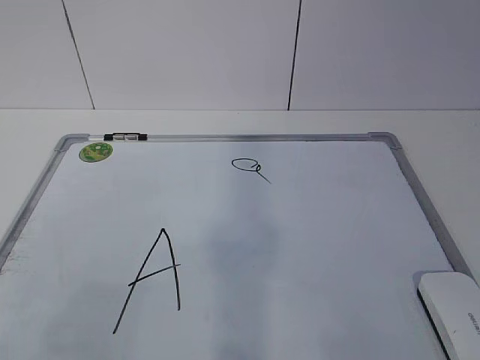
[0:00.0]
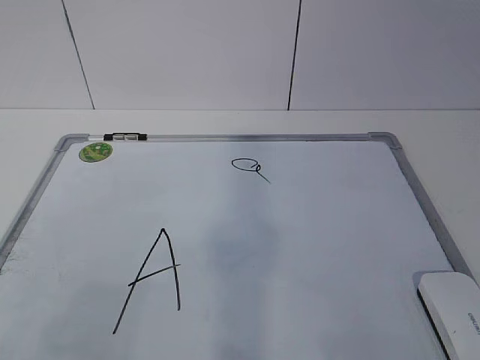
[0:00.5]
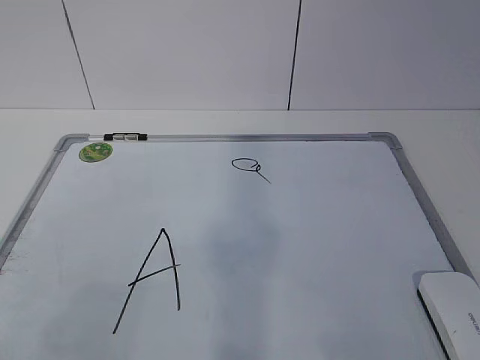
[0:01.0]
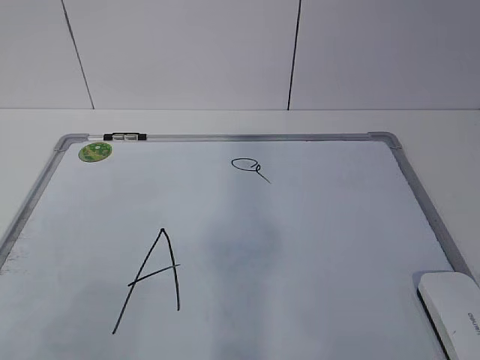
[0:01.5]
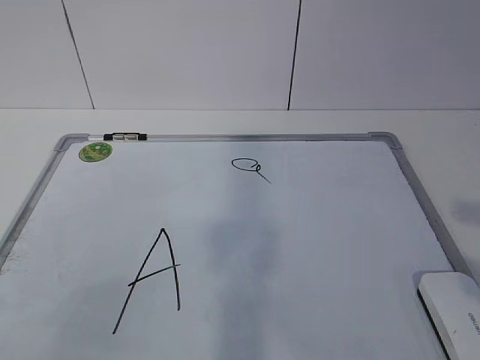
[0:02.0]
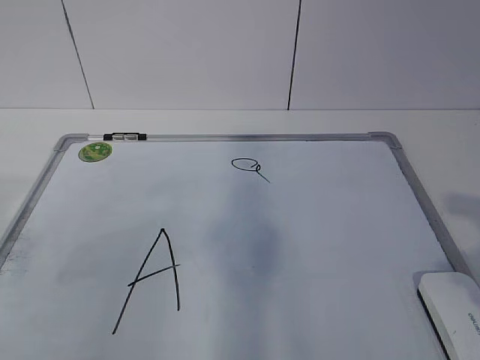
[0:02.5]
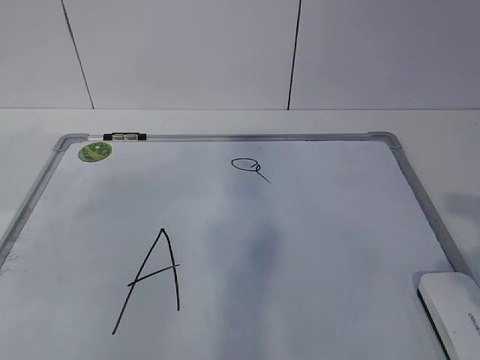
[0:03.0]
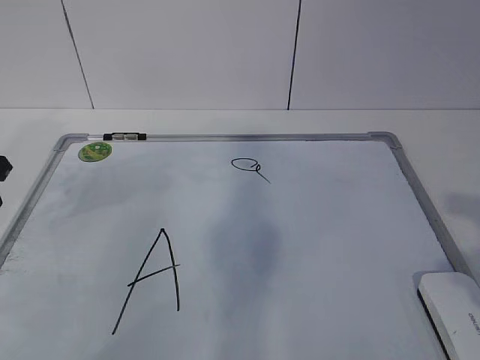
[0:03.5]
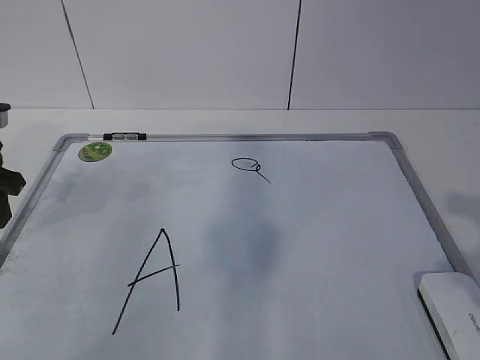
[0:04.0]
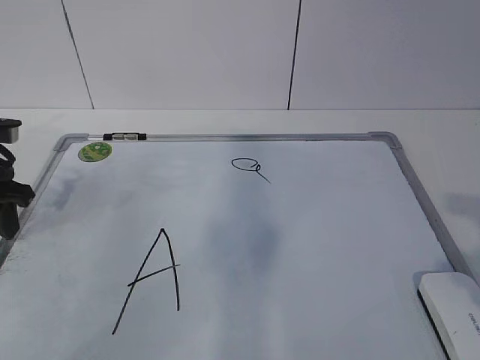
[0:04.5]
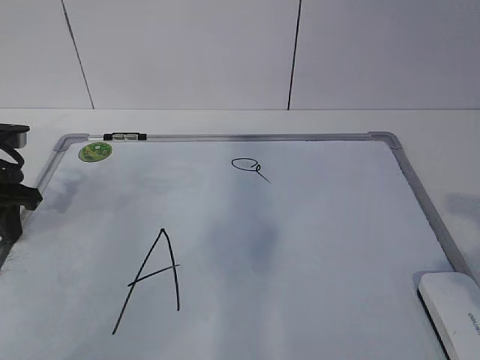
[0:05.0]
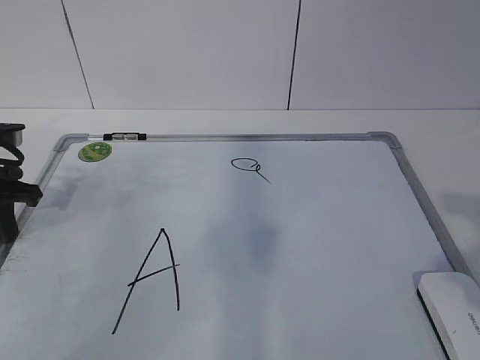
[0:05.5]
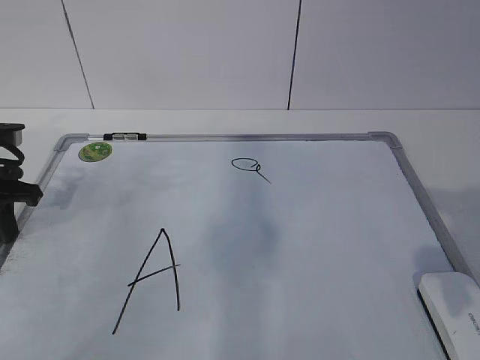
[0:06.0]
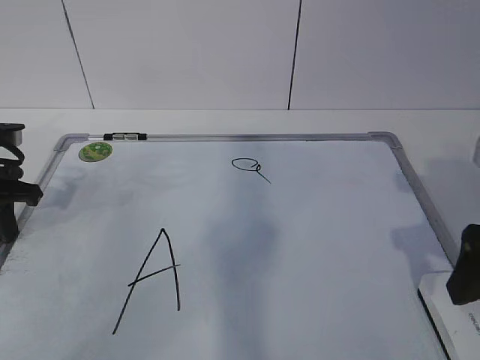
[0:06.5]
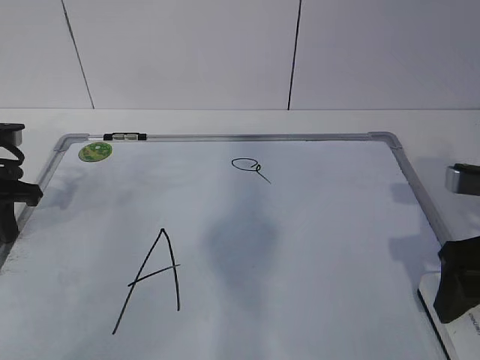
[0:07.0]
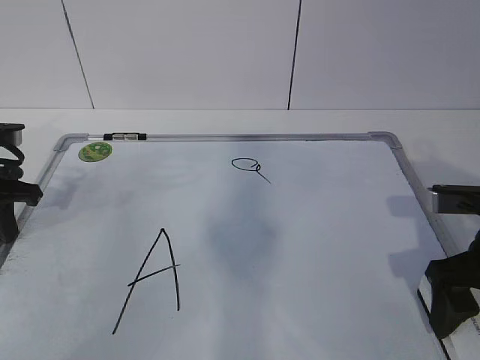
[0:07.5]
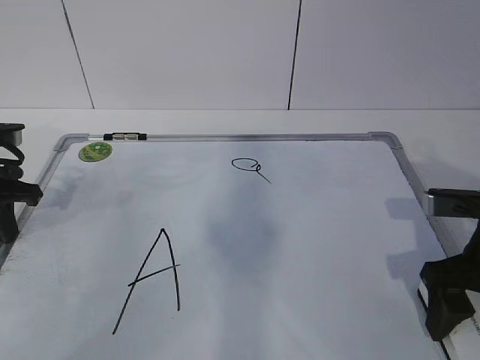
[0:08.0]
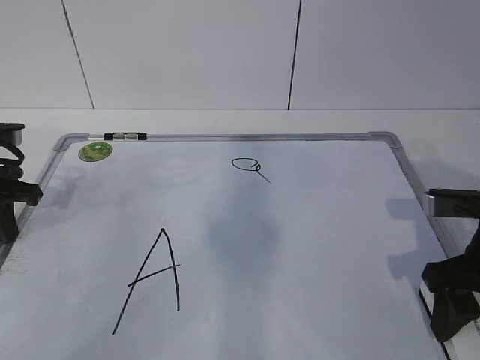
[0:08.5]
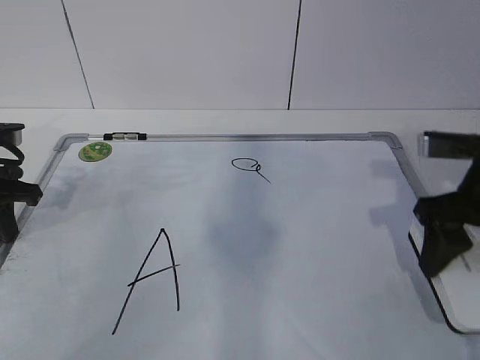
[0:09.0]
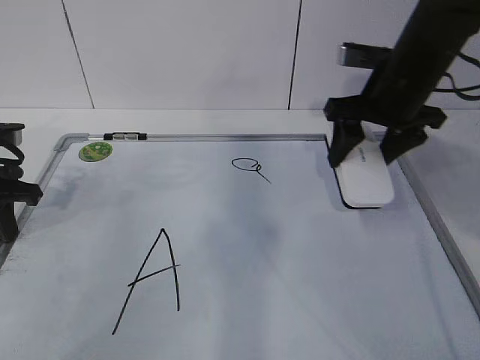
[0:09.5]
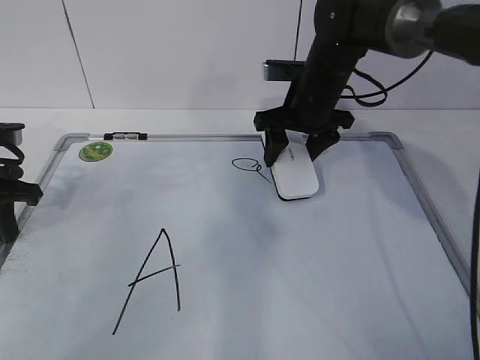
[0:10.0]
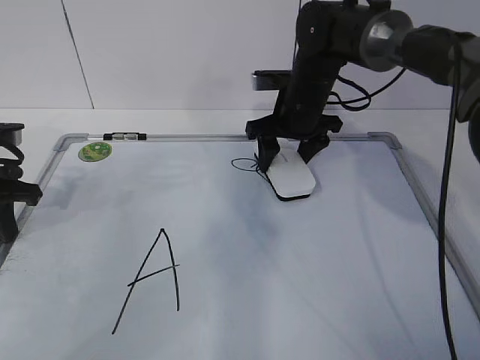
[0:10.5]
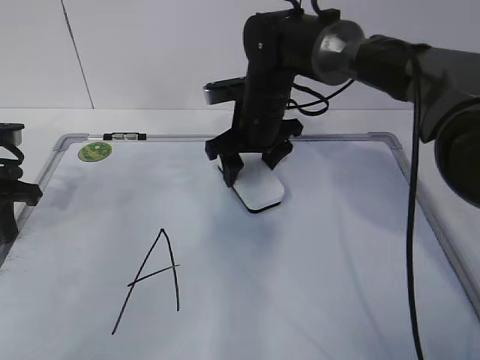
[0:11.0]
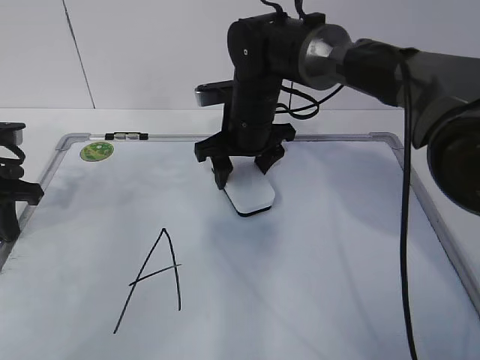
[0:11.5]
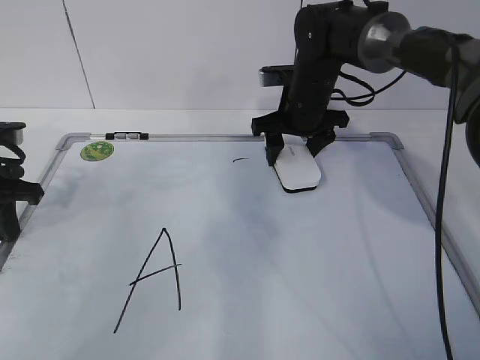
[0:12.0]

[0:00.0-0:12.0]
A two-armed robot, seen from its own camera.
Task of the whole recording: pick up the eraser on the blackboard and erase the letter "a".
Step, 0:04.5 to 0:07.0: Grab the eraser with your right hand.
0:02.0 to 0:04.0: The left gripper travels forward by approximately 30 cm.
0:04.0 to 0:06.0: The left gripper closes up.
0:06.0 to 0:08.0: The right gripper is displaced forward and downward by approximately 15 cm.
0:08.0 to 0:10.0: The right gripper shifts approximately 25 cm forward and to the left, and closes its fingers.
0:10.0 to 0:12.0: The right gripper goes to the left and returns, approximately 10 cm each way.

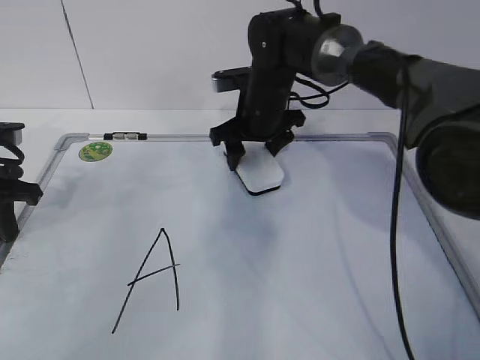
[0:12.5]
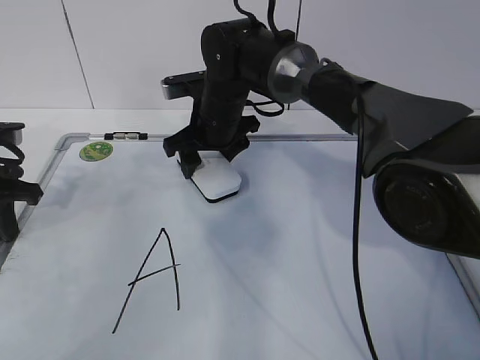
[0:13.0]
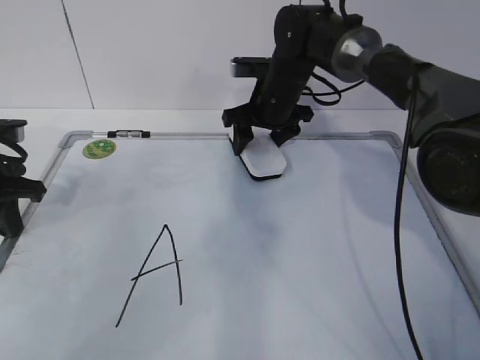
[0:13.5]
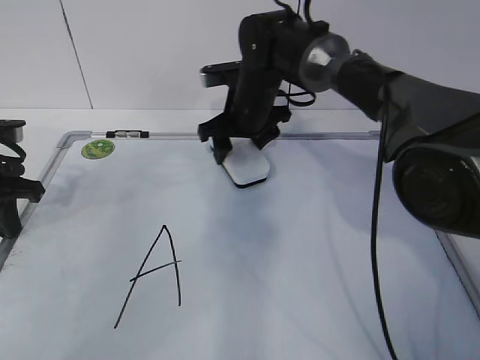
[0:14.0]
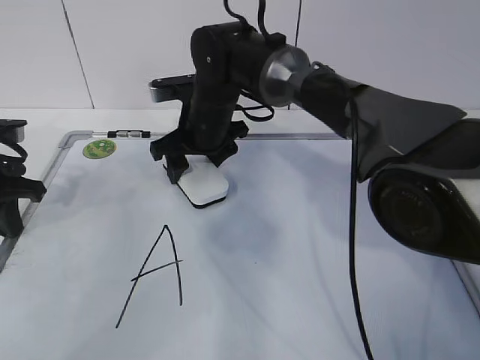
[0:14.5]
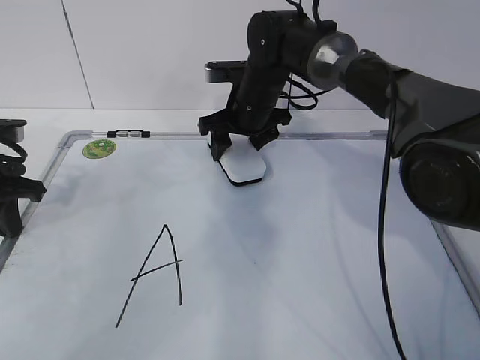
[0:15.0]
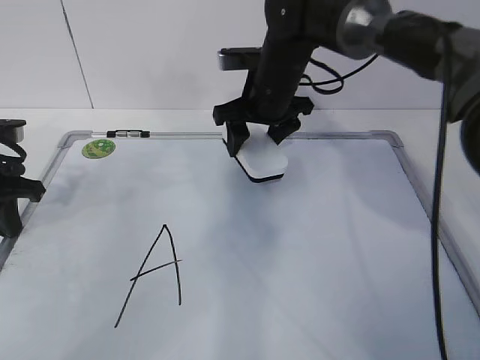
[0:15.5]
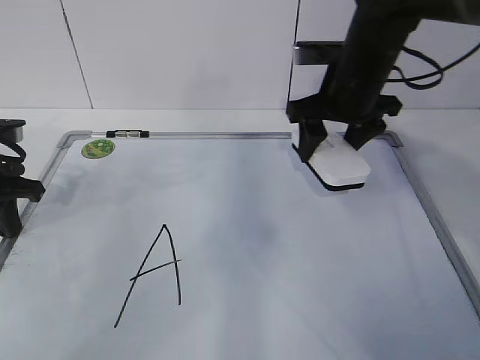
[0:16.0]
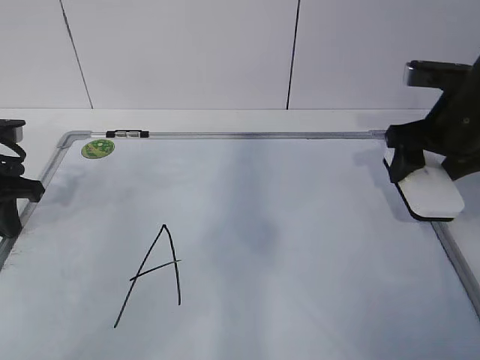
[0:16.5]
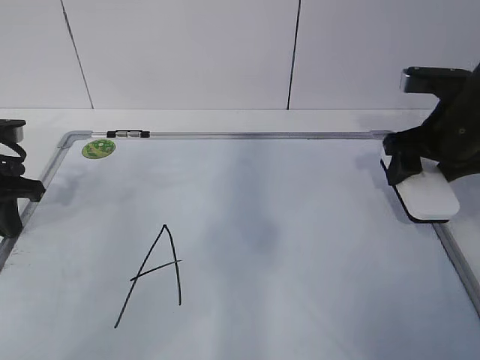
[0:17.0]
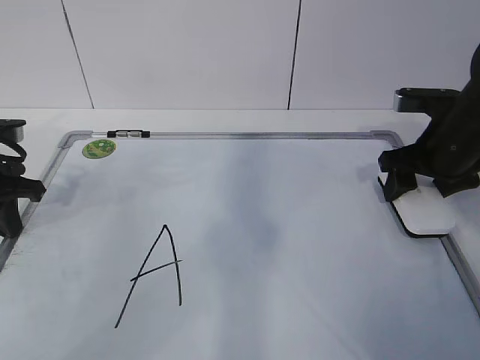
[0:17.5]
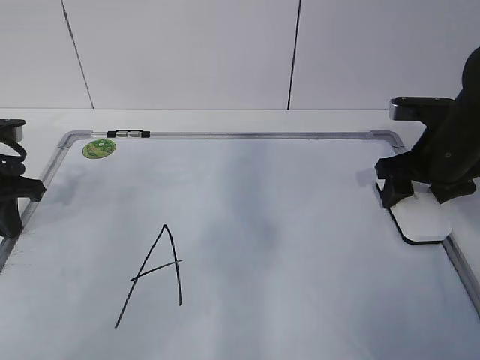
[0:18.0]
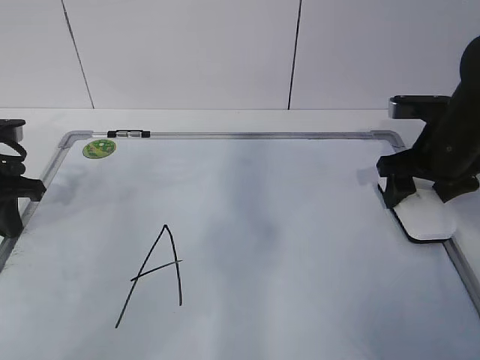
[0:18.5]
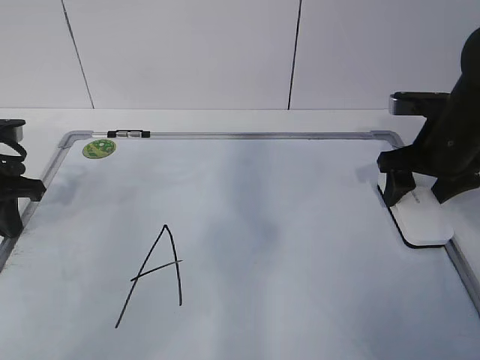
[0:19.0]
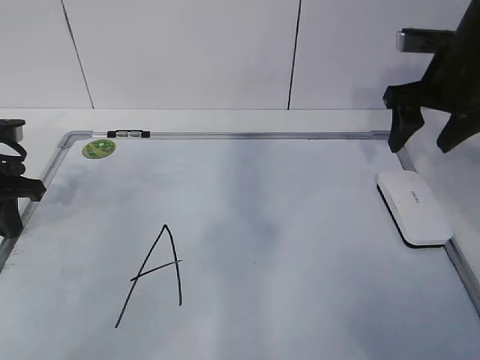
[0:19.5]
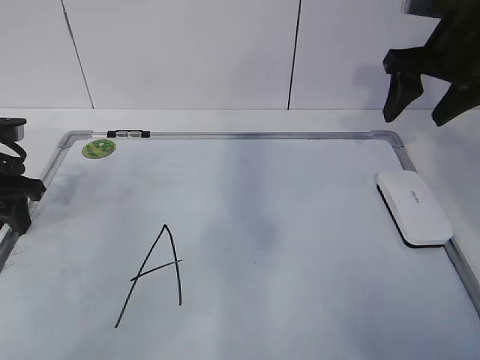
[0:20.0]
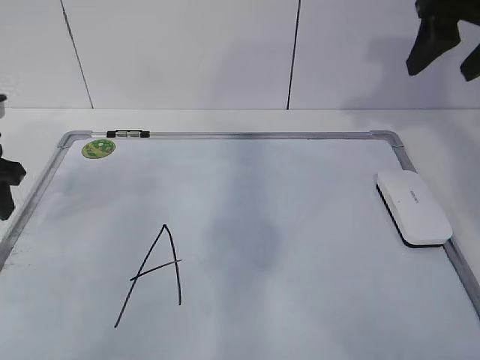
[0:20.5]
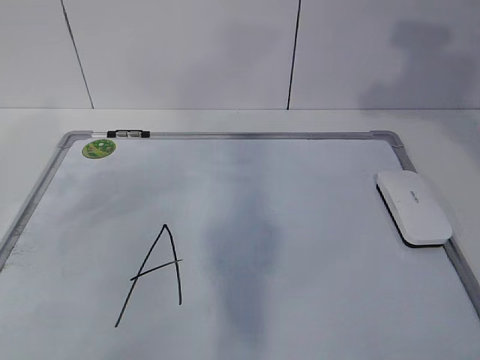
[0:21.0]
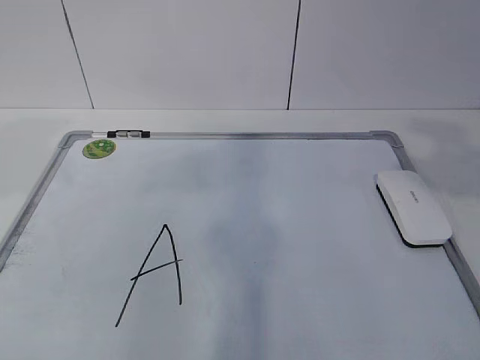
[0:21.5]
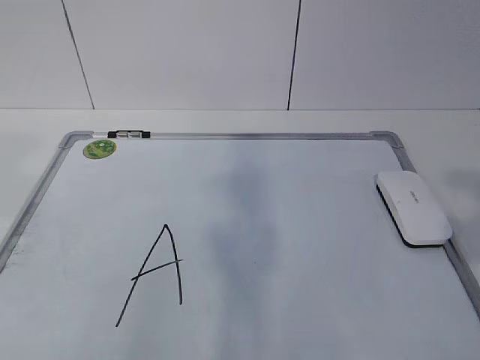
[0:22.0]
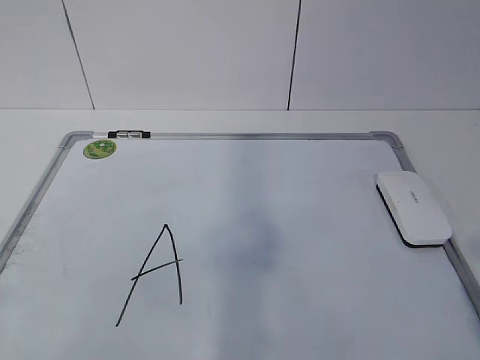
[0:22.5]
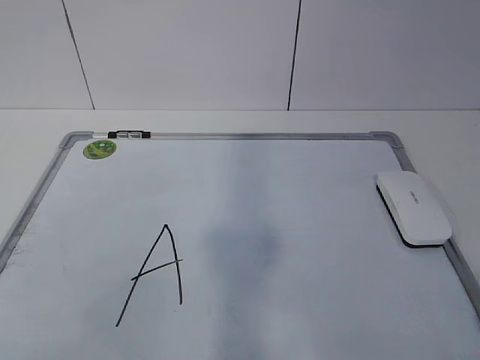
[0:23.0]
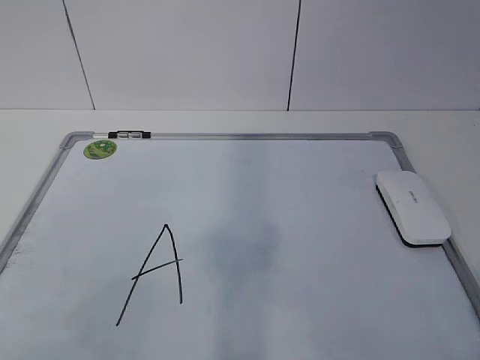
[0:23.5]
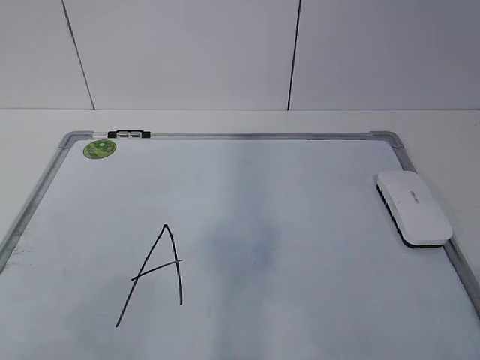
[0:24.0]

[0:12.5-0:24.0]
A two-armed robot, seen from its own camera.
Task of the whole recording: pick up the eraser on the blackboard and erase the letter "a".
Step, 0:13.0 to 0:15.5: Put down the eraser with your right hand.
0:12.5 to 0:14.5: The right gripper swings left and right, approximately 10 cm each way, with 2 reversals.
0:14.5 to 0:16.5: The right gripper moves to the right, approximately 25 cm.
0:16.5 to 0:18.5: There are only small adjustments of the grippers.
0:18.5 to 0:20.0: The right gripper heads upward, covering approximately 10 cm.
0:20.0 to 0:22.0: The left gripper heads backward and upward, covering roughly 35 cm. The right gripper moves backward, some 35 cm.

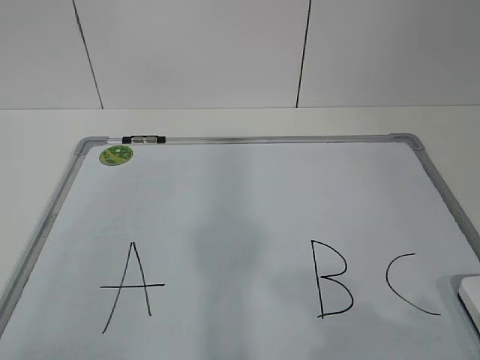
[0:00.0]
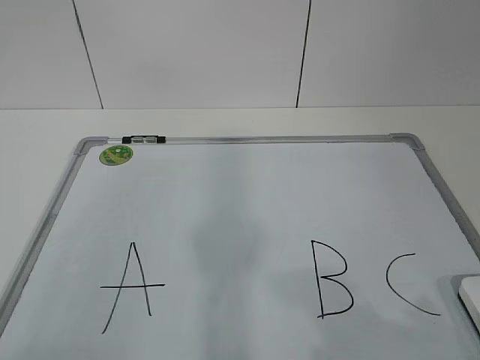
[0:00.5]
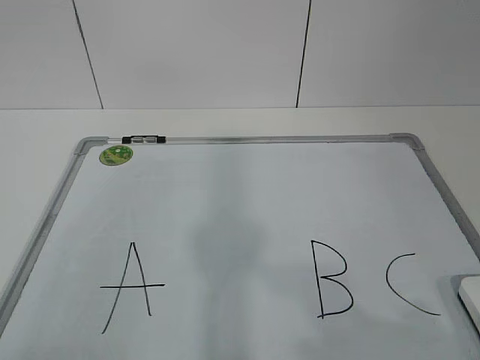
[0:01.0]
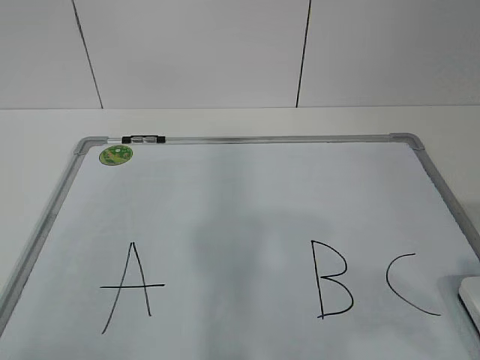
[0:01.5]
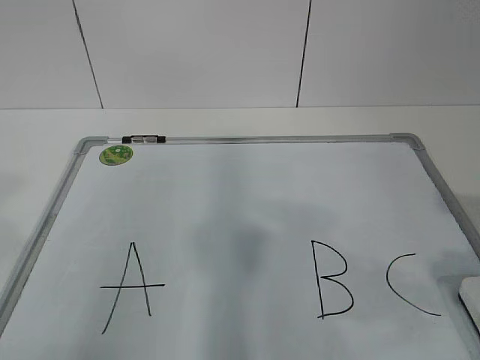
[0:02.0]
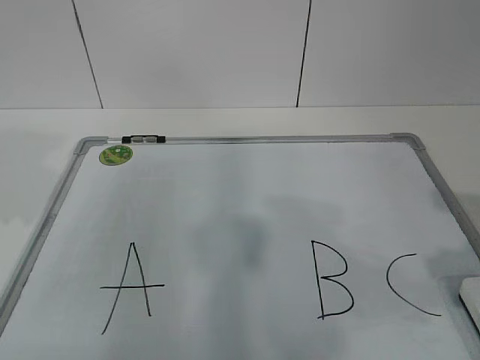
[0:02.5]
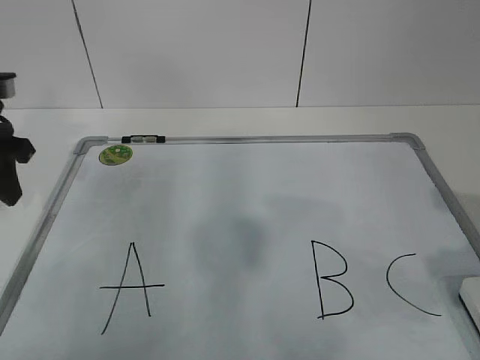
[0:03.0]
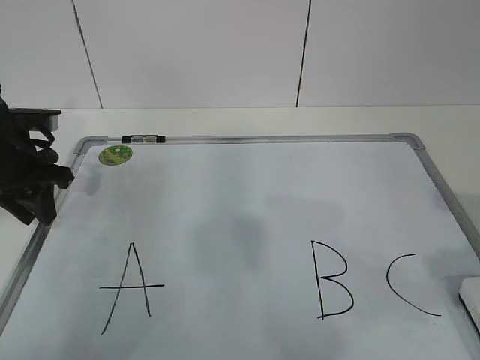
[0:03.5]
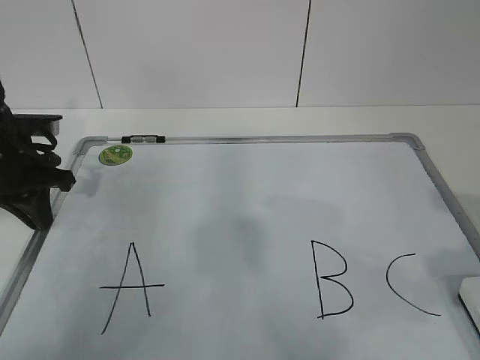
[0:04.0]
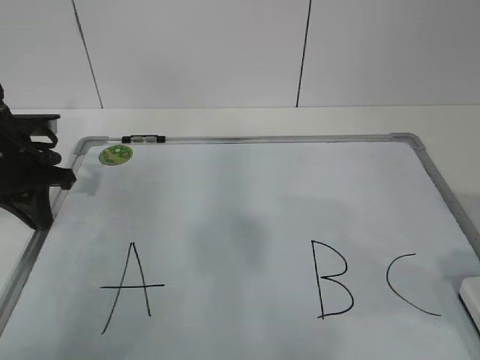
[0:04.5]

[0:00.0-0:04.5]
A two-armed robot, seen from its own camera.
Task of the whole recording: pick up the eraser on the blackboard and erase the letter "B".
Step, 0:00.0 to 0:03.0: Hold the drawing board steady with your left hand.
0:02.0 to 0:04.5: The left gripper is displaced forward and downward by about 35 cm, and closes its fingers.
